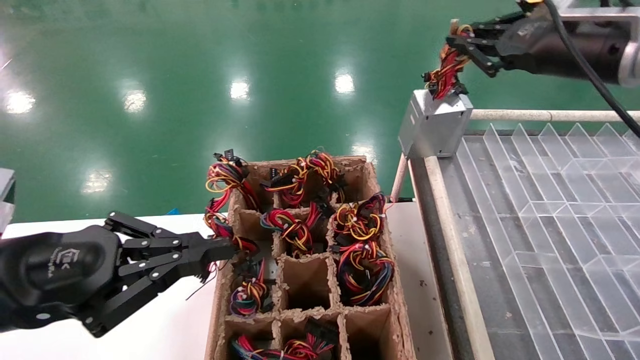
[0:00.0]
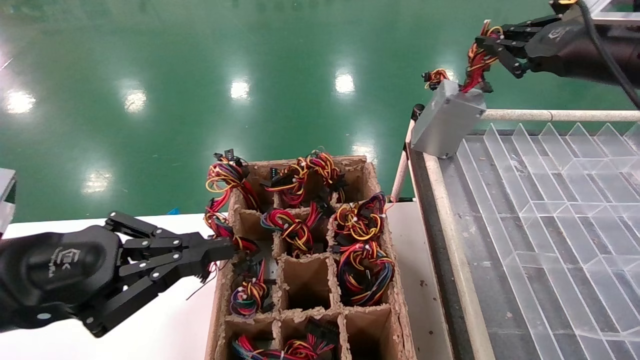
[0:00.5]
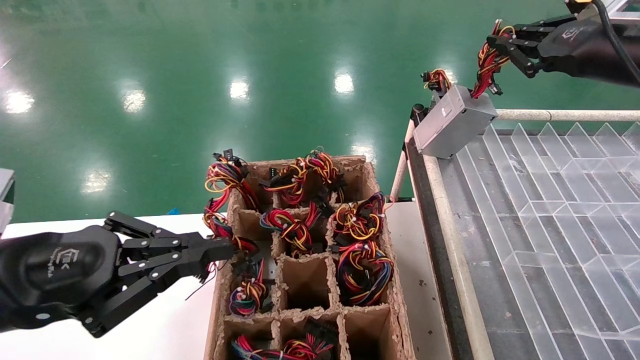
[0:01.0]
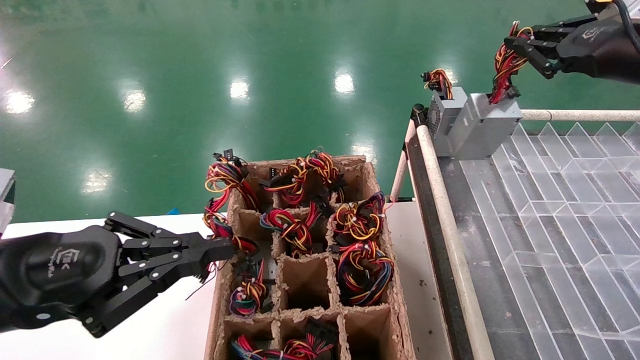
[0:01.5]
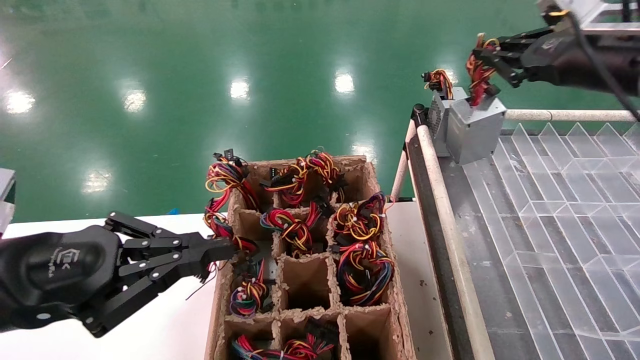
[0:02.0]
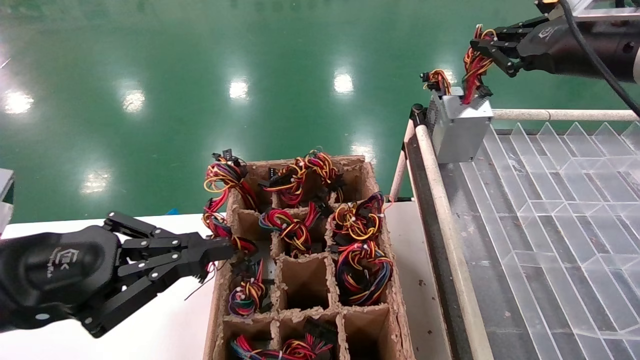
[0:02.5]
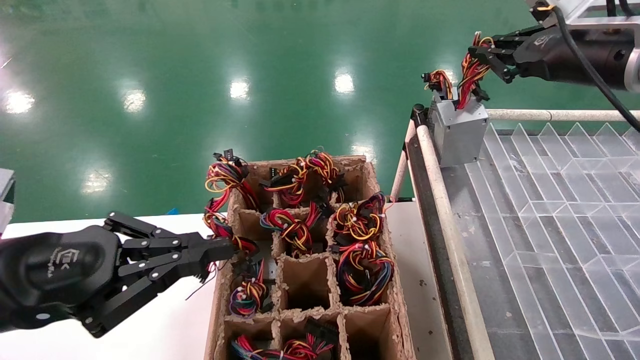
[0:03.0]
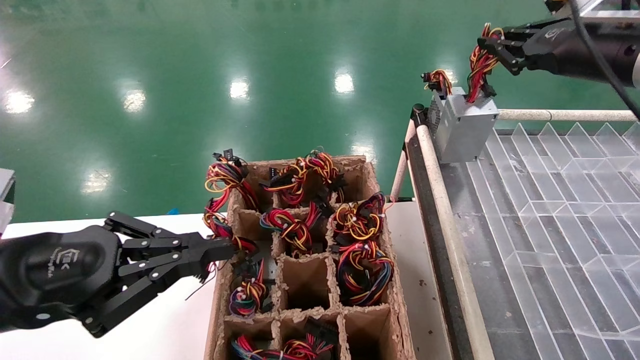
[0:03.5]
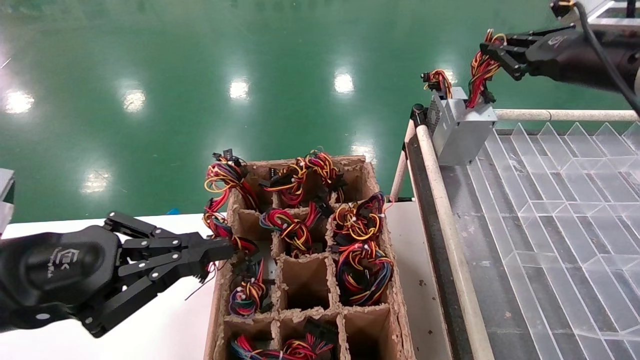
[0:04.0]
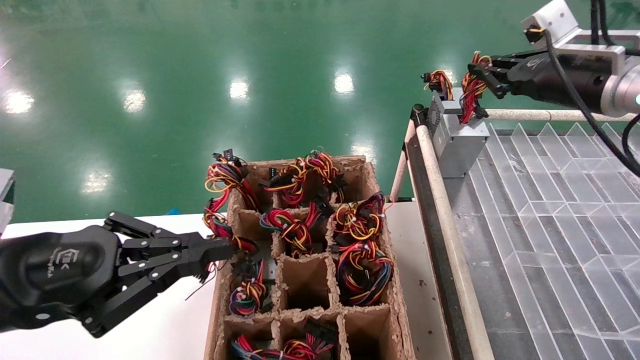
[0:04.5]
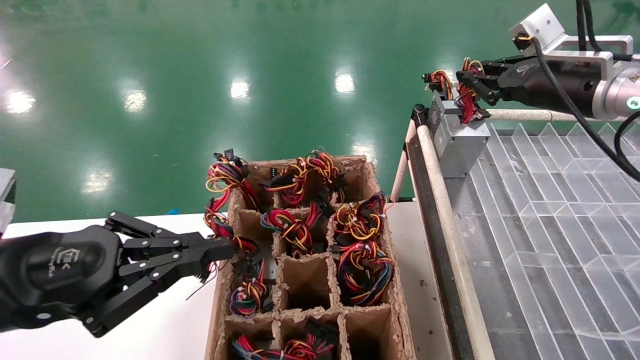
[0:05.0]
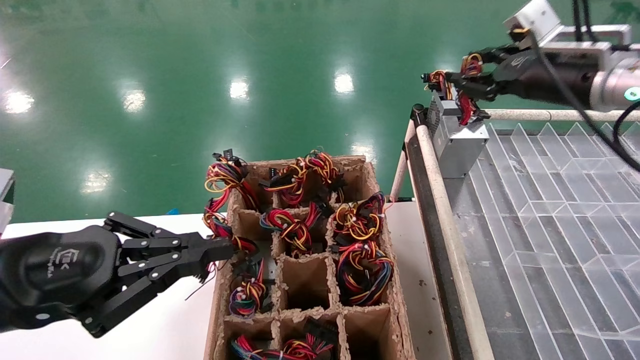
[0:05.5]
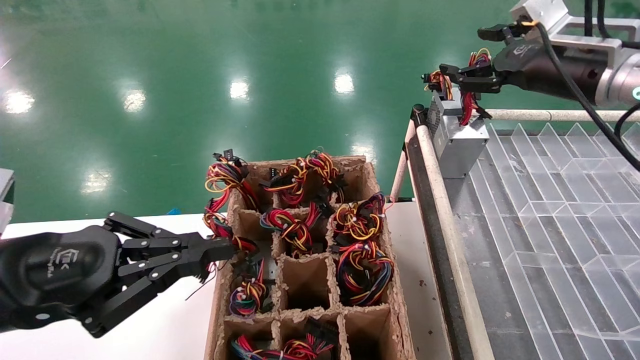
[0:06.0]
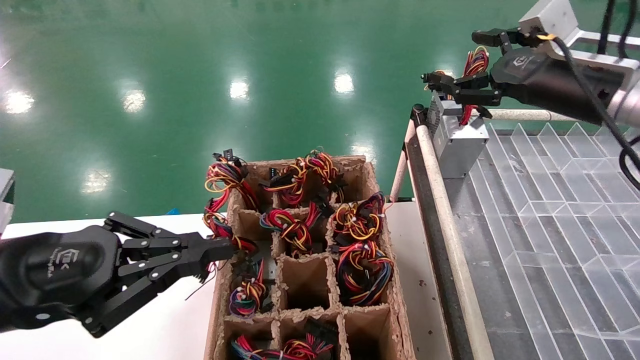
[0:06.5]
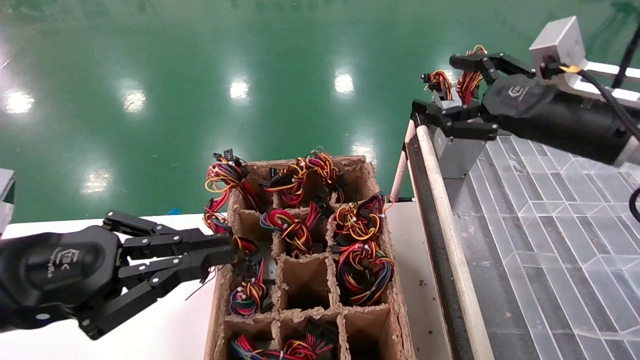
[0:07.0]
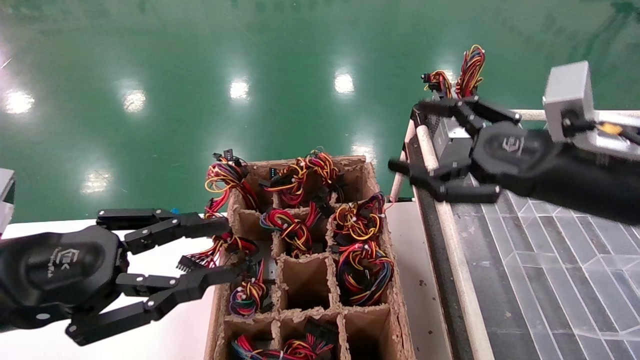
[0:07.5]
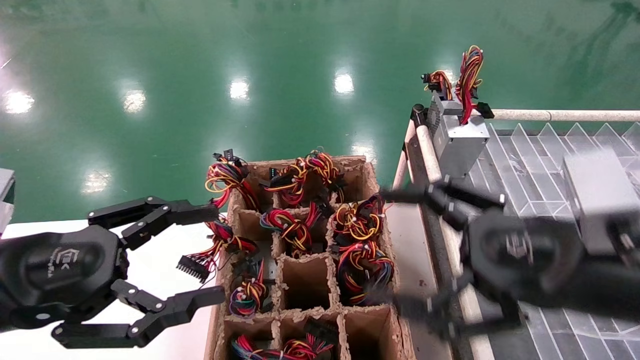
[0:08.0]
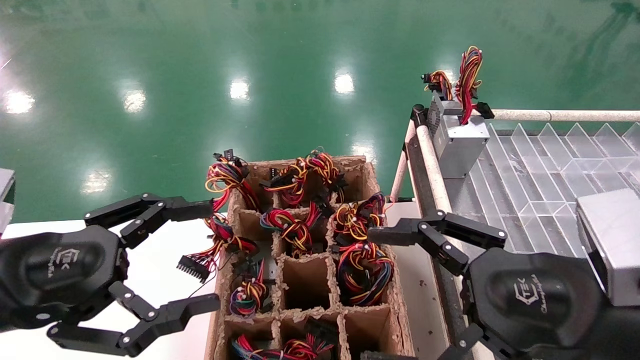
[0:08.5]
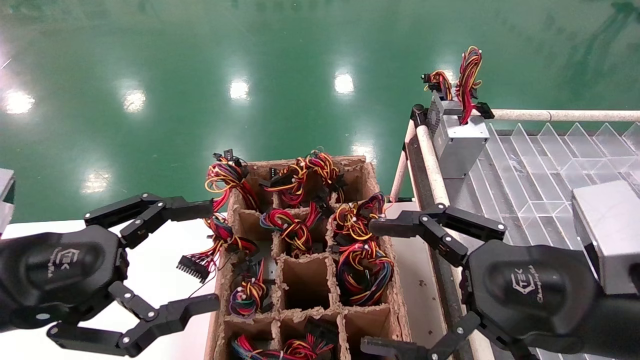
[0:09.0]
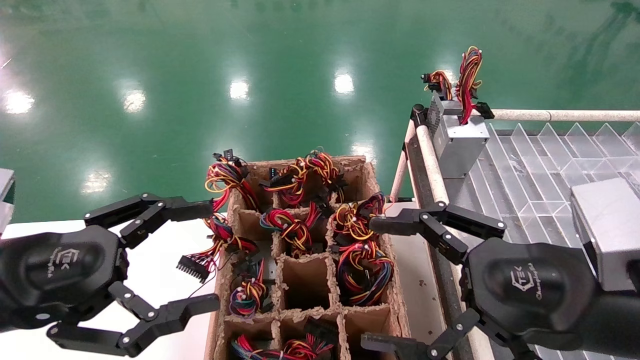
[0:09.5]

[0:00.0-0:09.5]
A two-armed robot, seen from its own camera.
Step, 0:00.0 to 0:05.5: Place the main unit power supply in the designated area.
0:02.0 to 0:05.5: There are only small adjustments of the grippers.
0:05.5 to 0:07.5: The right gripper shifts roughly 15 cm backward, downward and to the left, and opens up.
0:07.5 to 0:09.5: The left gripper opens up. Meanwhile the right gripper travels backward and downward by approximately 10 cm.
